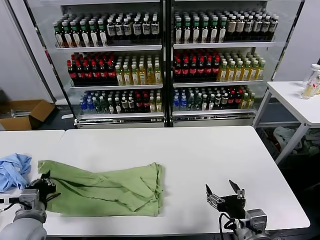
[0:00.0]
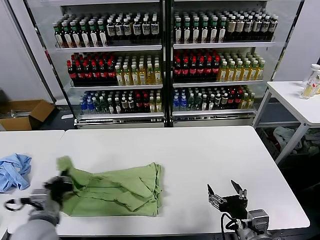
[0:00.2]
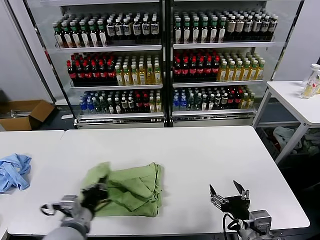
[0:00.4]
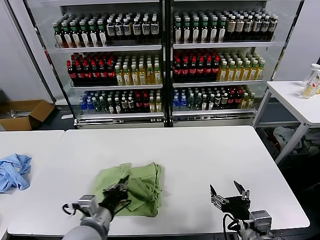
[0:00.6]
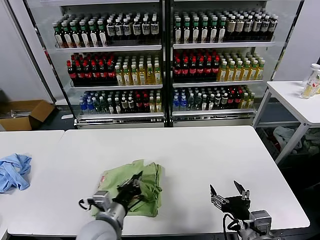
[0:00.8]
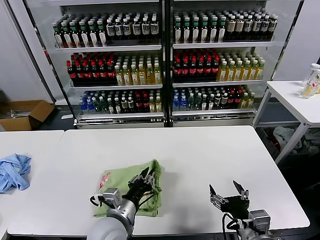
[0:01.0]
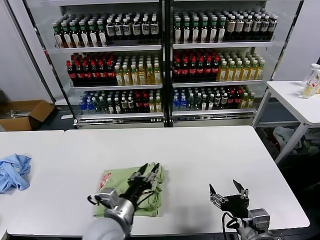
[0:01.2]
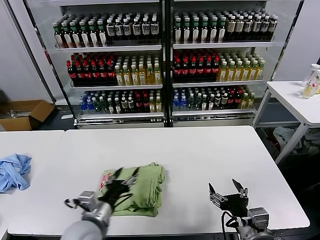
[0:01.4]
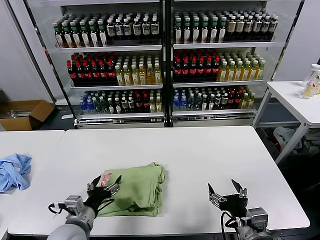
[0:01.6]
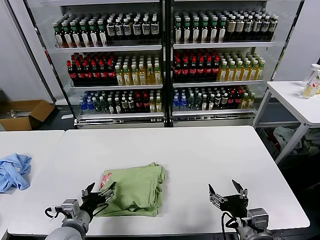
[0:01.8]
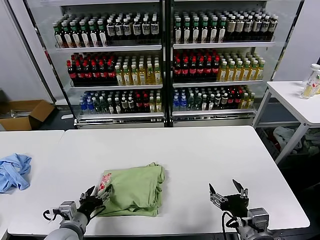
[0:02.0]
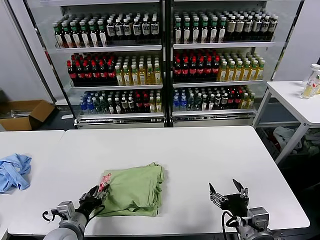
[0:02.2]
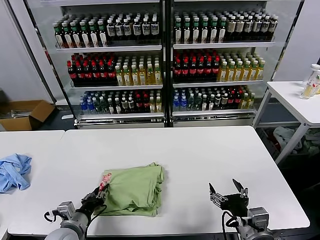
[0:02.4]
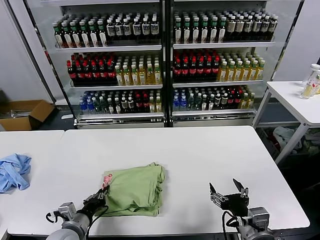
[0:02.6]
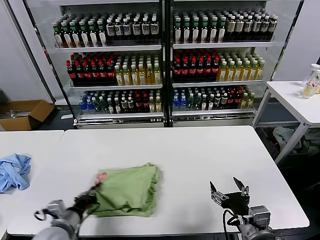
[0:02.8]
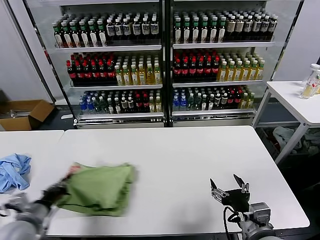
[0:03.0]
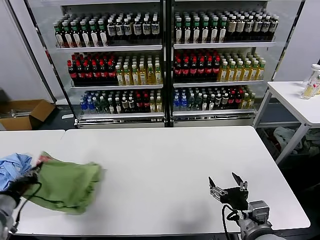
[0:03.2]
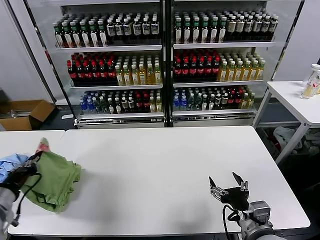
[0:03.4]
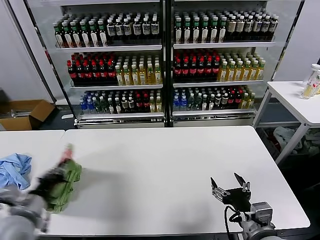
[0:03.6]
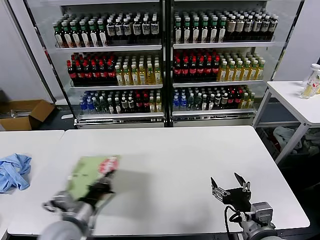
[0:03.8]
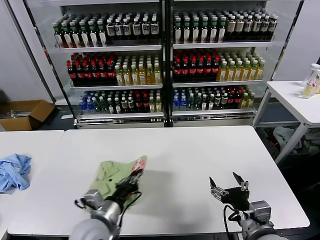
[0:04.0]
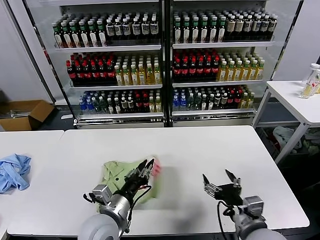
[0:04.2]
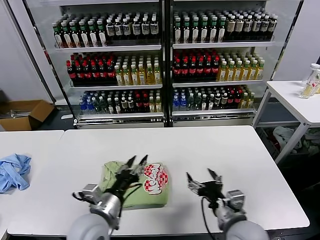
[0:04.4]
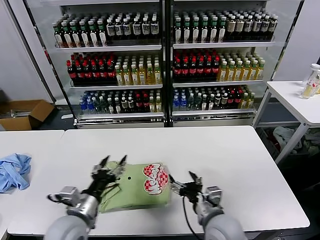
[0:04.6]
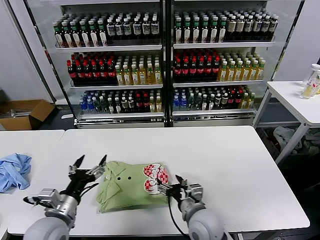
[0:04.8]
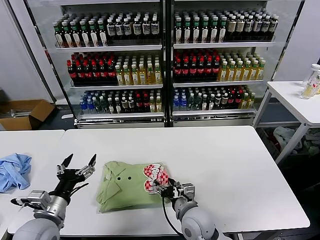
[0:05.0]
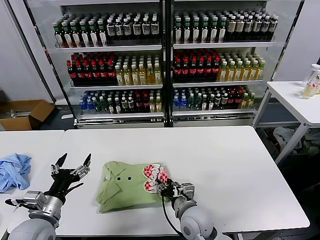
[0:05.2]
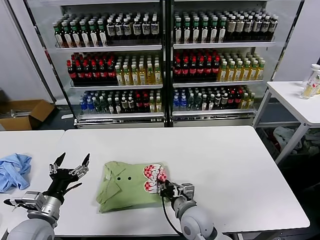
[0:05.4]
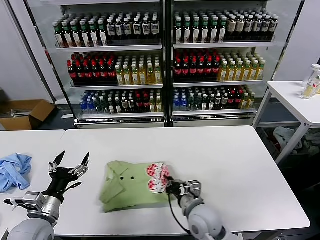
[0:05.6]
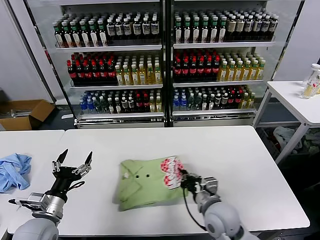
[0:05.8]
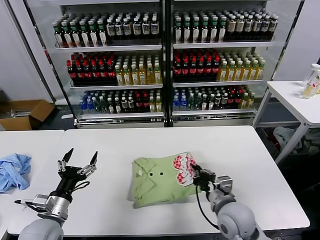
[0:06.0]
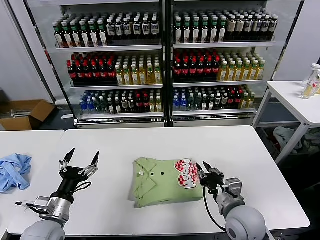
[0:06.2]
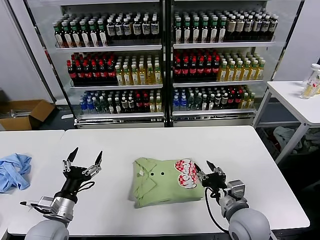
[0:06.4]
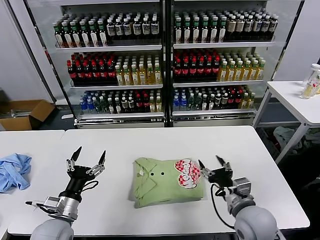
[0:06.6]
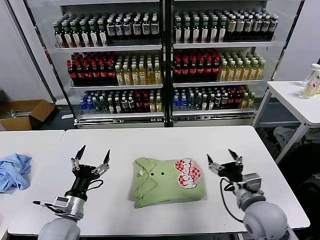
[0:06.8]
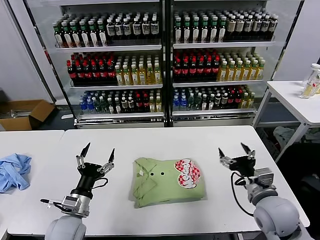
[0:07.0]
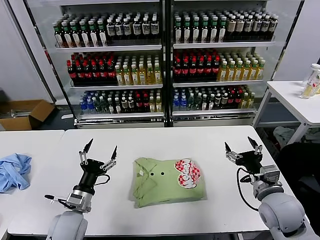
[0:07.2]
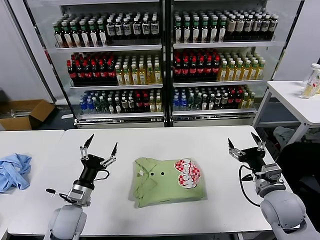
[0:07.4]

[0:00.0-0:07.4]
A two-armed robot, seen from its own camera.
Task of the whole recording: fold and organize the clothes.
Step, 0:00.0 to 0:01.2: use the left gripper to drag the left edge of the fabric to the left and folds it over the right edge.
Step, 0:01.4 to 0:04.2: Flip the folded clothes over with left gripper.
Step, 0:04.6 to 0:06.2: Drag the clothes to the center of the table.
0:00.0 to 0:01.4: The left gripper travels to the right by some 15 cm, and opens its fingers.
0:01.4 to 0:03.0: The left gripper moves to the left, roughly 20 cm, and closes.
0:03.0 to 0:04.4: The right gripper changes place by approximately 5 cm; the left gripper goes some 20 cm to the right, and opens up.
0:04.4 to 0:06.0: The right gripper shifts some 5 cm forward, travels to the left and back again, about 10 cm each way, and closes its fingers. Meanwhile the left gripper travels to the left by approximately 15 cm, and opens.
0:06.0 to 0:07.4: The left gripper ends up approximately 5 cm from where it was. The right gripper moves to the right, some 10 cm, and opens its fingers.
